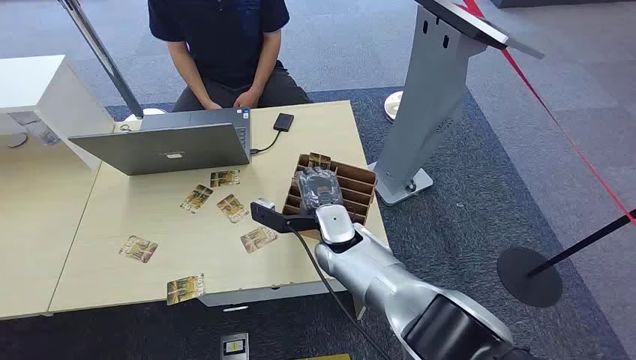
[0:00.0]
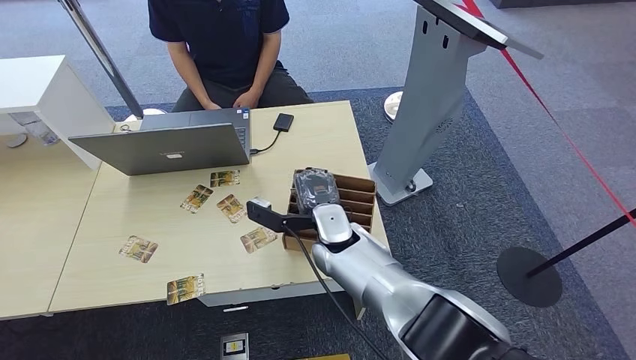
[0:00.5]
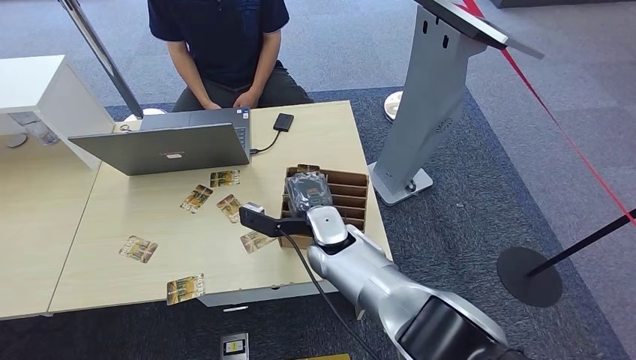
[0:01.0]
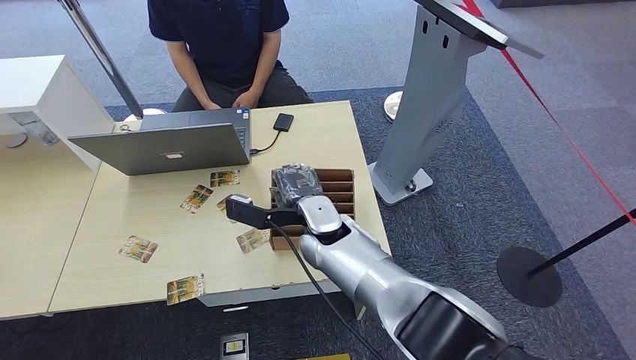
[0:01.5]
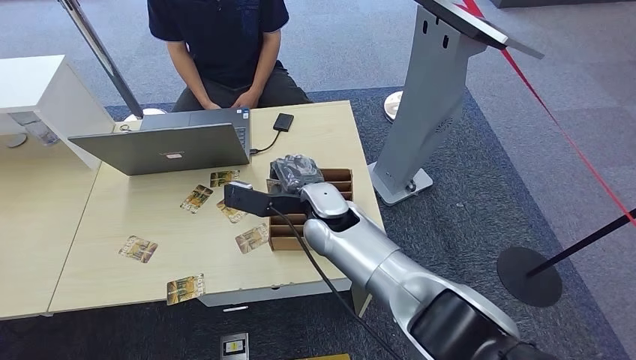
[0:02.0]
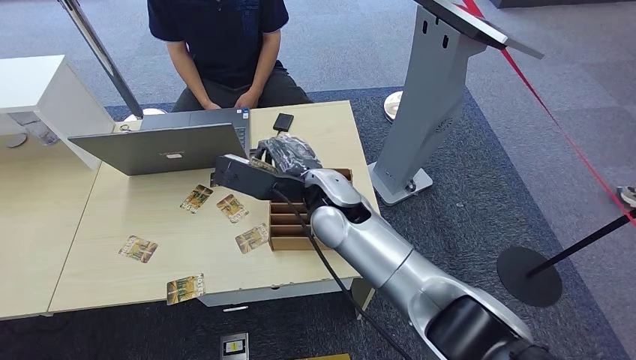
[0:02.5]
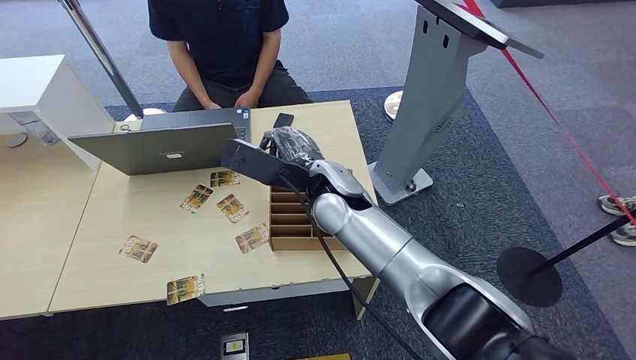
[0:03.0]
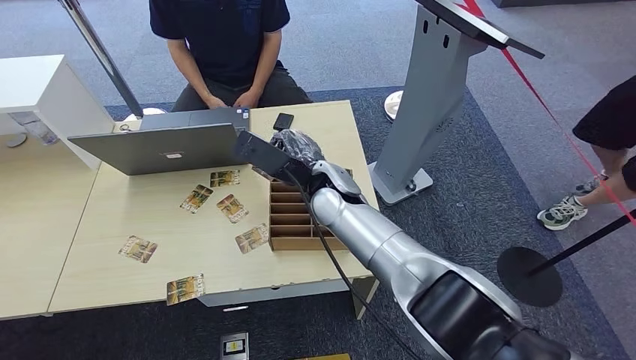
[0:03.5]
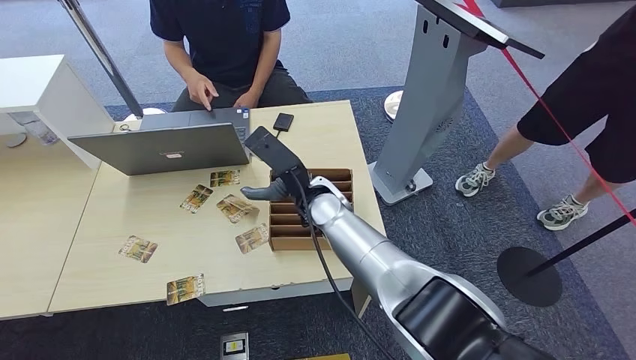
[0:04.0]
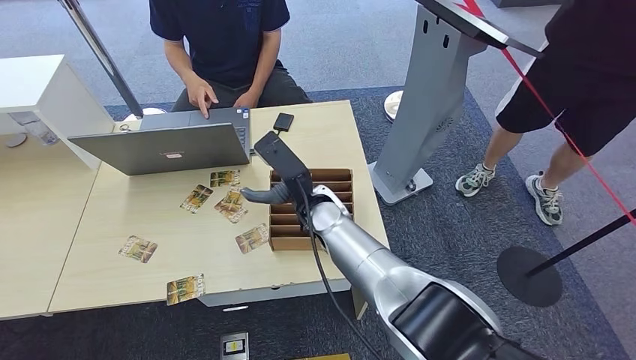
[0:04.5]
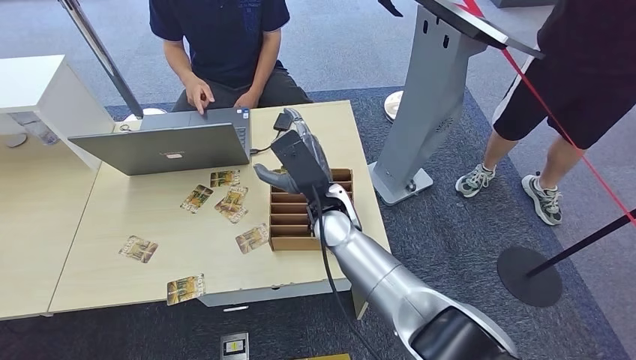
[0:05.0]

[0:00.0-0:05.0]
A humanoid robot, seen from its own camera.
Step, 0:00.0 to 0:02.5: Pick up the room card from the card holder.
Step, 0:03.0 to 0:05.0: Hand the room card to the target.
